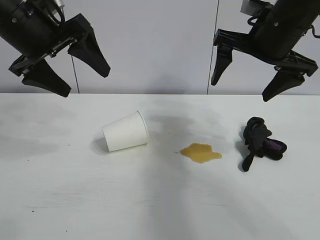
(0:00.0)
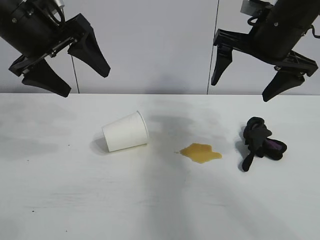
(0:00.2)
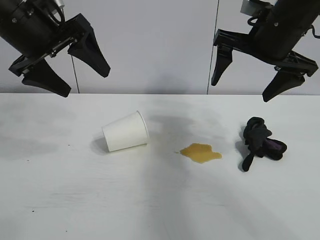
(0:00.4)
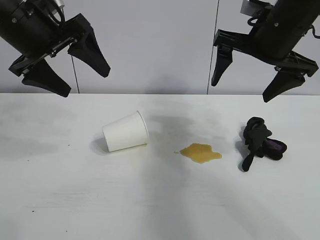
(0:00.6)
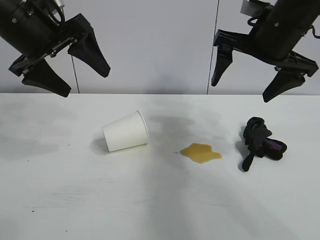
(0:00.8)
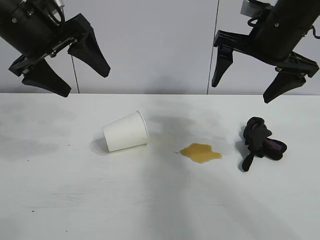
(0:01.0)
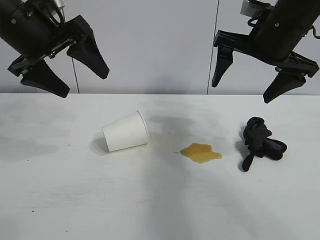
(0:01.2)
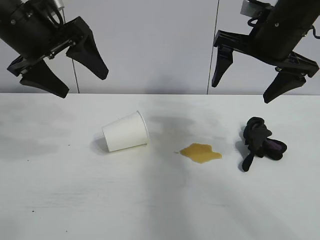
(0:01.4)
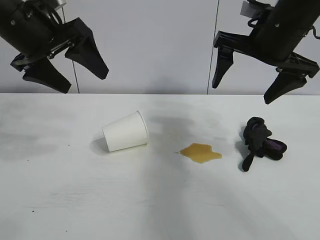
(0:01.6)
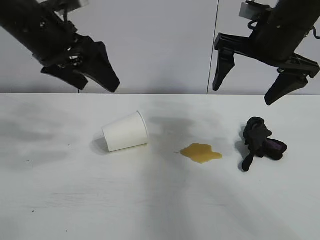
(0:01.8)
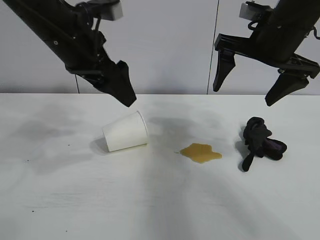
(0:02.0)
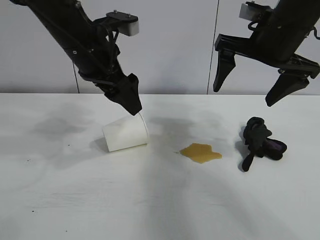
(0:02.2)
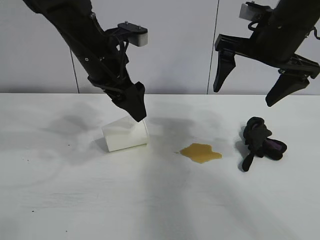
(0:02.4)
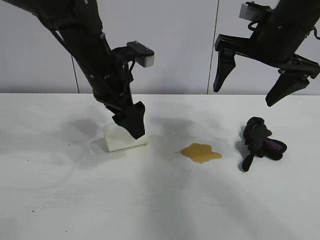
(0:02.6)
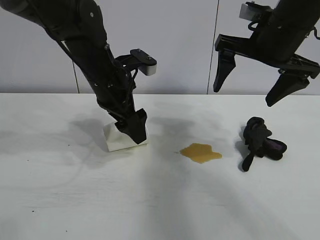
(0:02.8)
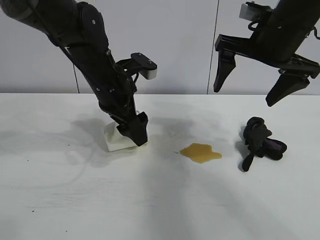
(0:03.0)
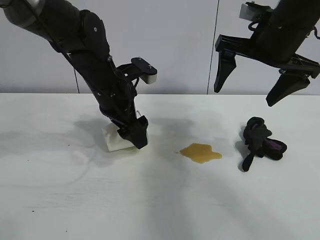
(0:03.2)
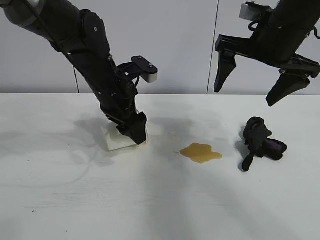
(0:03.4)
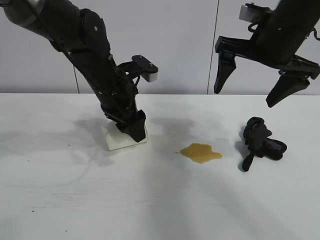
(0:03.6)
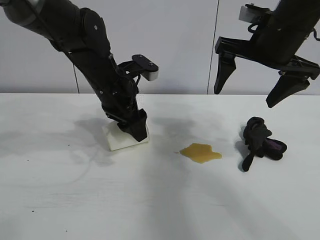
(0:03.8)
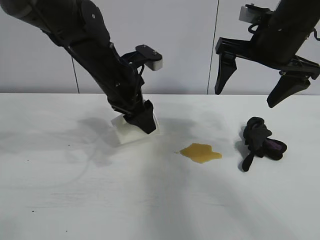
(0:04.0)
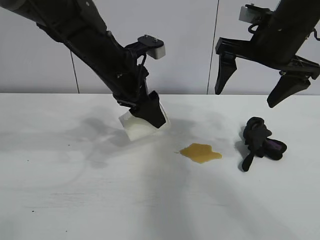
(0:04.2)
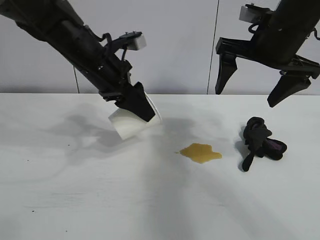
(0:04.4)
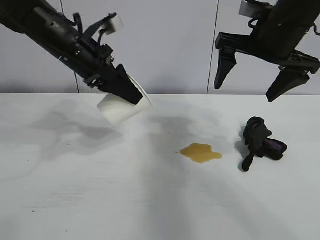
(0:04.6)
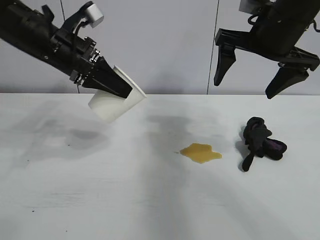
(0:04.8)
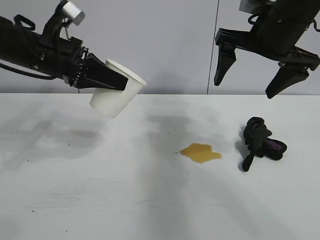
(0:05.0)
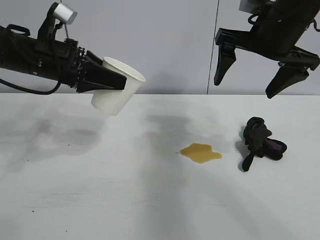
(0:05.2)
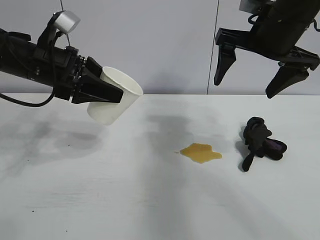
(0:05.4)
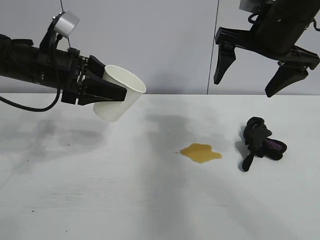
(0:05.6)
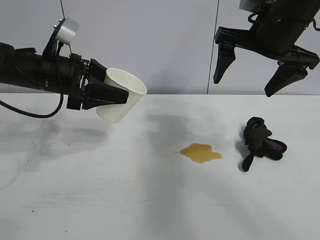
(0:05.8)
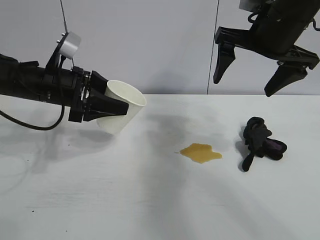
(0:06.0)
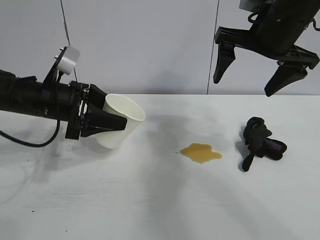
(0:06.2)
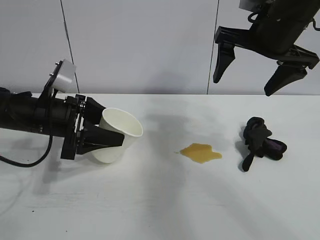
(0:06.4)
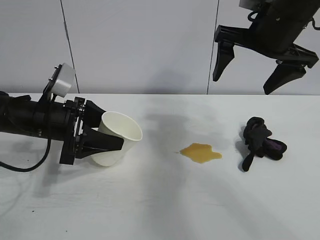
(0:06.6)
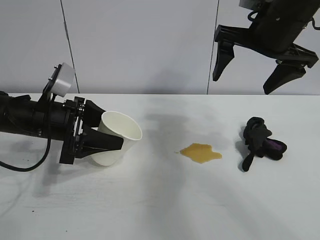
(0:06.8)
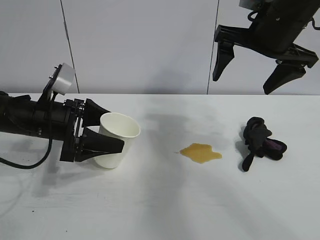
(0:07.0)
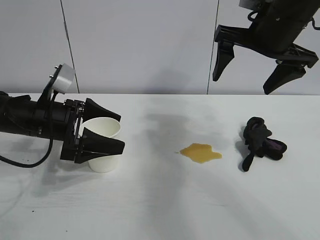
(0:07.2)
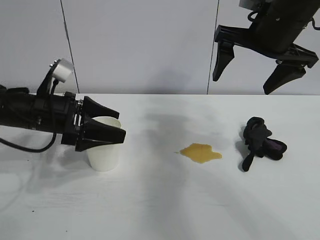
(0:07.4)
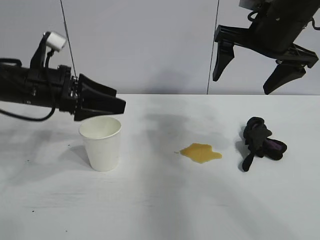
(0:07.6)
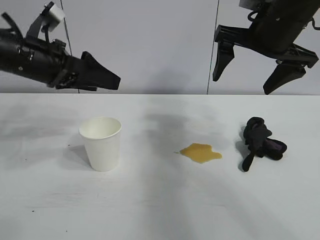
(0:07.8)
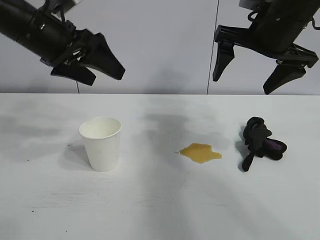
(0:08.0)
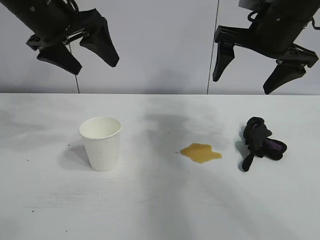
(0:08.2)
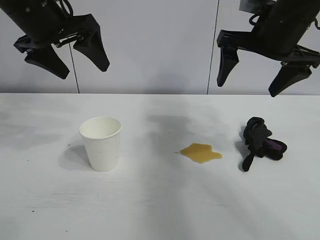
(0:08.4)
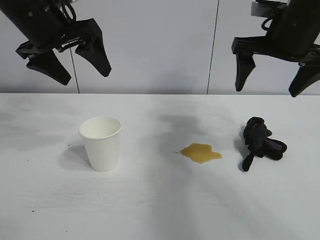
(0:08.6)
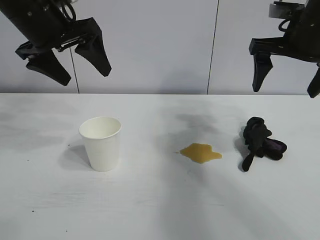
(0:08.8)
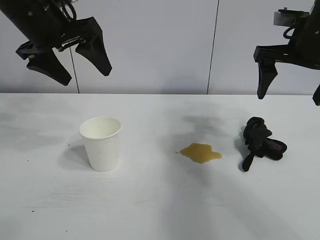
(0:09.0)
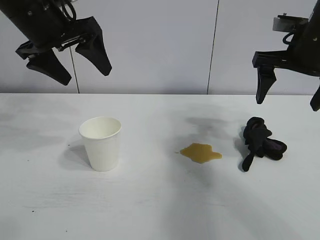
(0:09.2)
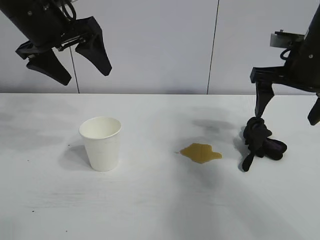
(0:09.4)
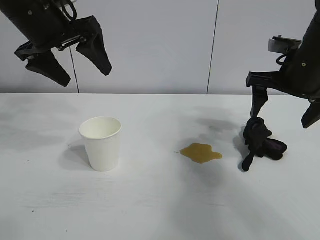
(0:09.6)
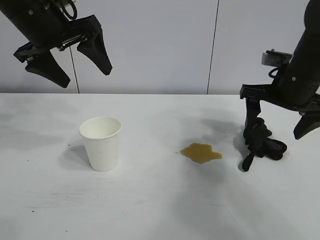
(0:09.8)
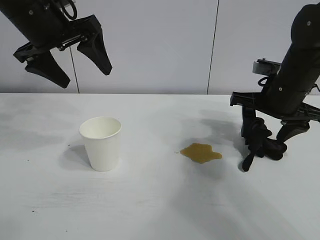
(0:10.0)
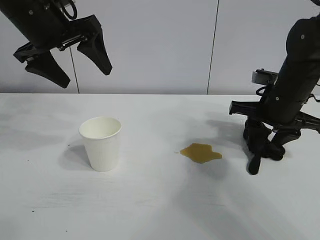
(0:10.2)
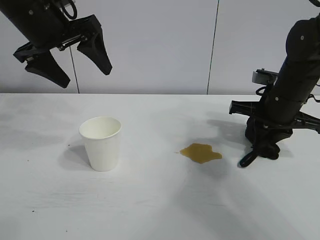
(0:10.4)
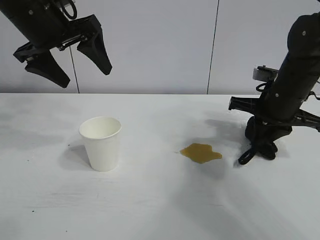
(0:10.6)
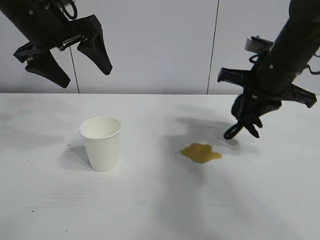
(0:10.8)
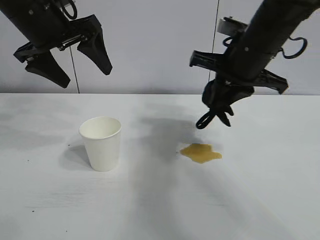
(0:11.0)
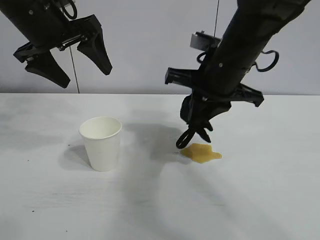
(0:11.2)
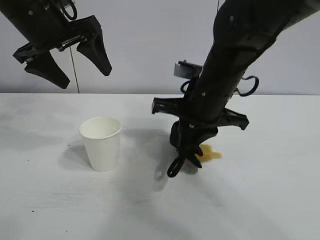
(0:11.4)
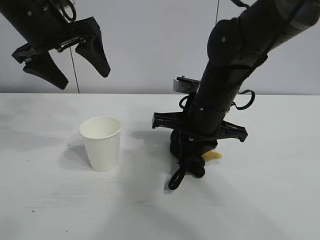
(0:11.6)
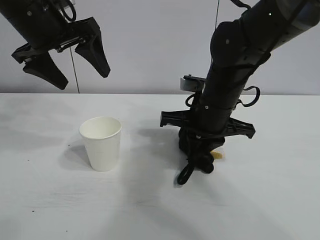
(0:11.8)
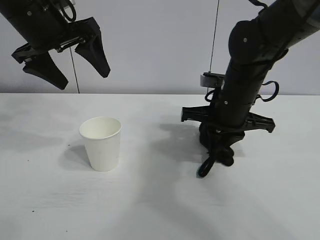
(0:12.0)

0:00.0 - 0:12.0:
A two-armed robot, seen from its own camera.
Task of the whole recording: the left gripper pick up the fallen cup and place it upright, the right gripper grasp the black rag and wipe the stain on the table, the right gripper put the black rag back in its original position.
Step, 0:01.2 - 0:03.4: Grasp the paper cup with left gripper.
Step, 0:03.6 - 0:07.2: Stand the paper cup upright with left gripper.
Step, 0:07.4 - 0:10.4: Grasp the rag with right gripper.

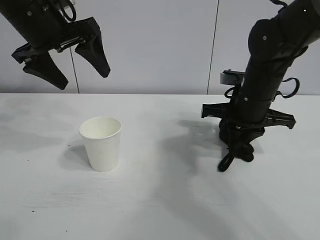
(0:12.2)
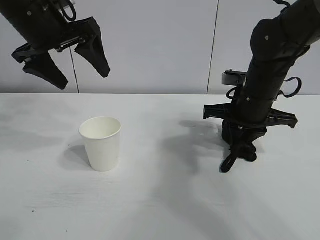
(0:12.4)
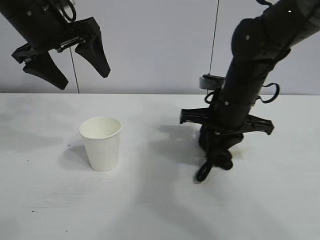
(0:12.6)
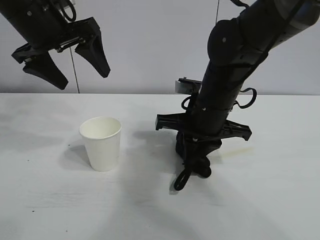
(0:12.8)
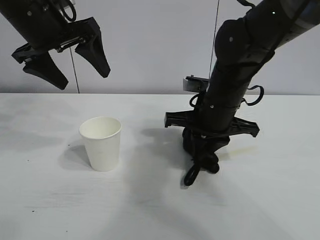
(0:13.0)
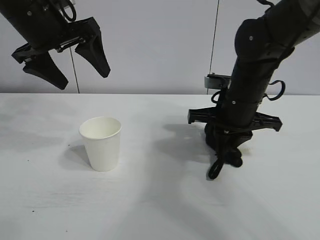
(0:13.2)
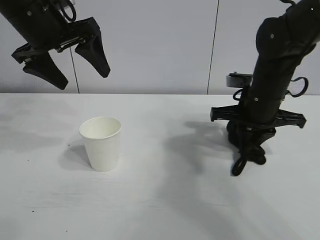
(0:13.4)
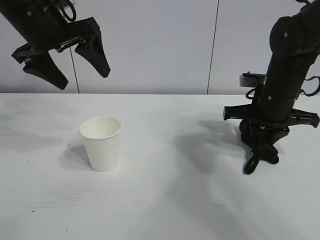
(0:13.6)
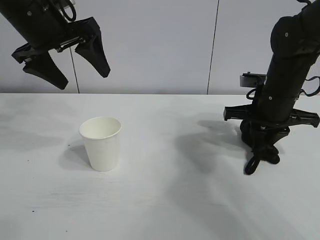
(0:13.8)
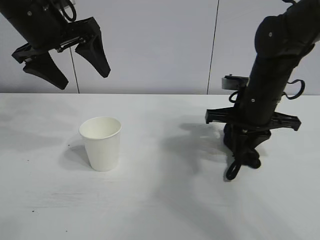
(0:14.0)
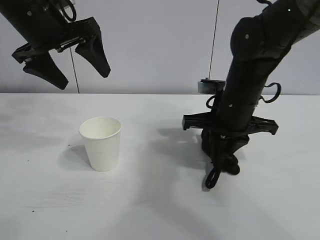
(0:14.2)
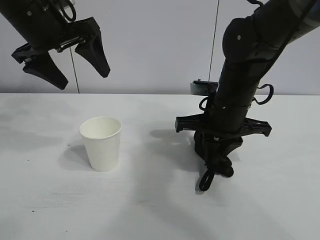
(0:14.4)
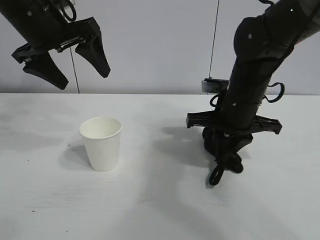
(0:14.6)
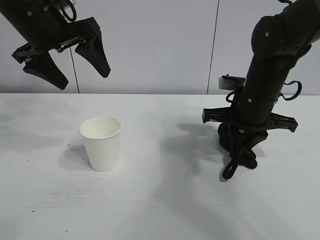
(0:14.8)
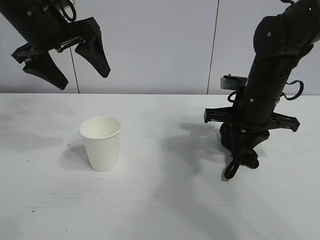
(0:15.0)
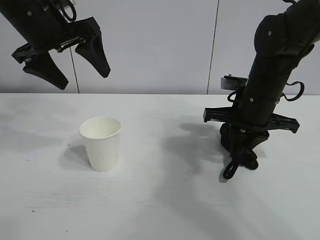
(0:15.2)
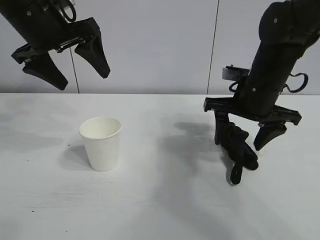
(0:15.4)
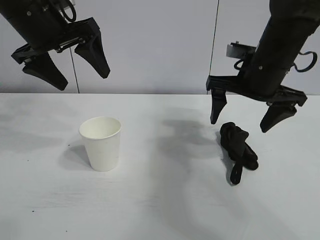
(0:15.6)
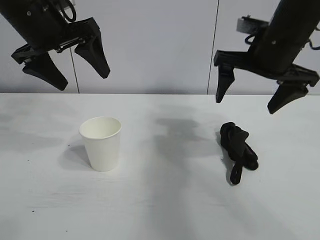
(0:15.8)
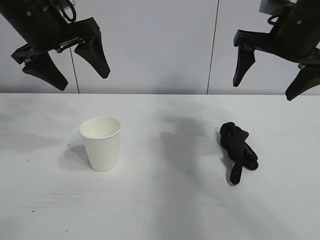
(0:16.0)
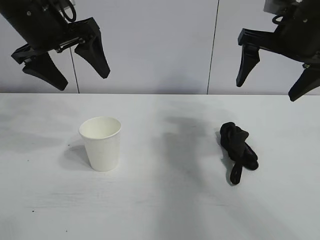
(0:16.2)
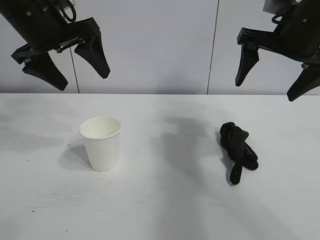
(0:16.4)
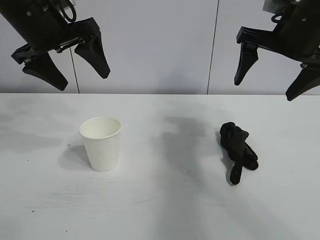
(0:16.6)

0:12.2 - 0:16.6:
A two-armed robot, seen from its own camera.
Task of the whole recording: the left gripper pick up the fallen cup and place it upright, the right gripper grasp the black rag and wipe the stain on the table, the right gripper put the black rag back in its original position.
Step, 0:12.2 - 0:15.2: Wipe the stains off the table with the rag with right gripper.
